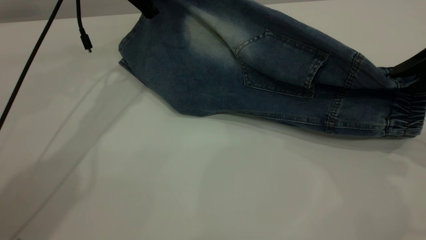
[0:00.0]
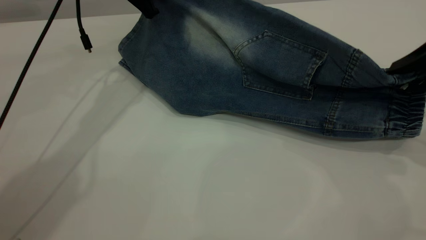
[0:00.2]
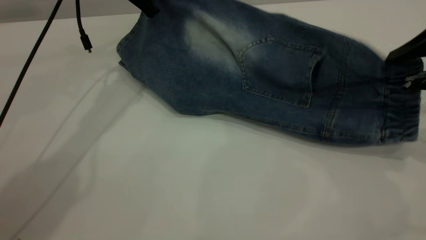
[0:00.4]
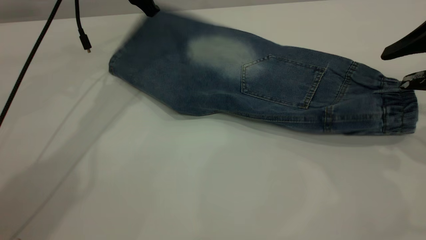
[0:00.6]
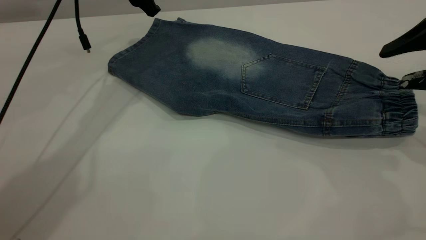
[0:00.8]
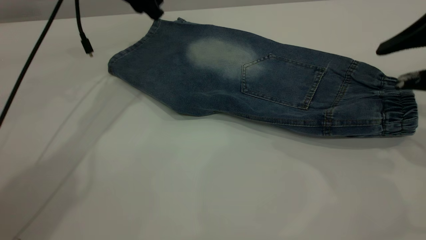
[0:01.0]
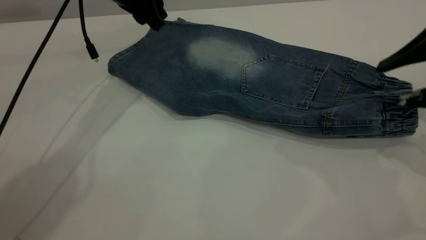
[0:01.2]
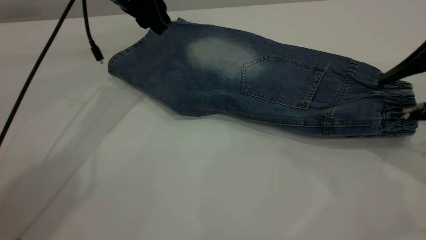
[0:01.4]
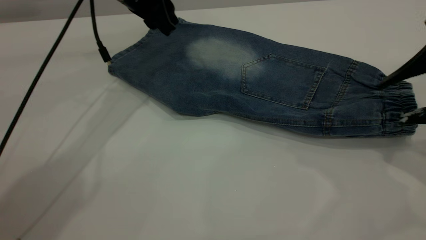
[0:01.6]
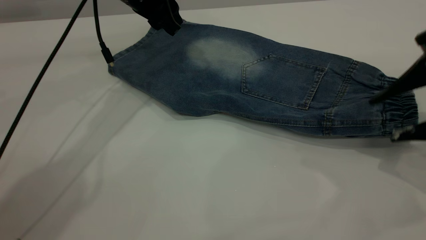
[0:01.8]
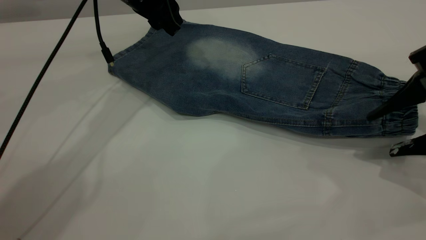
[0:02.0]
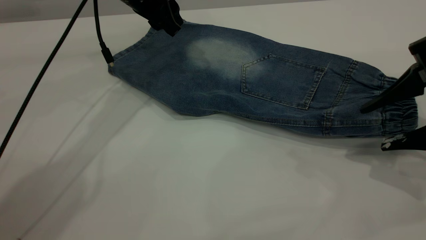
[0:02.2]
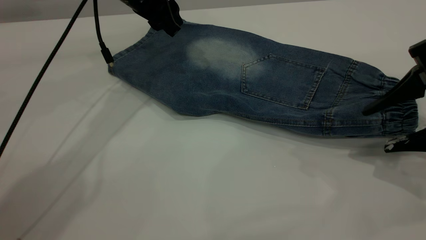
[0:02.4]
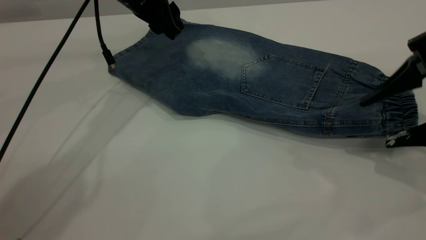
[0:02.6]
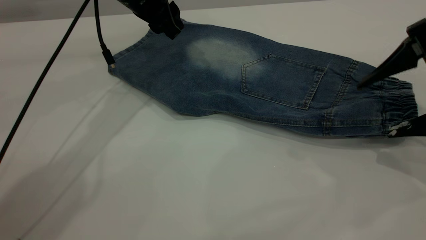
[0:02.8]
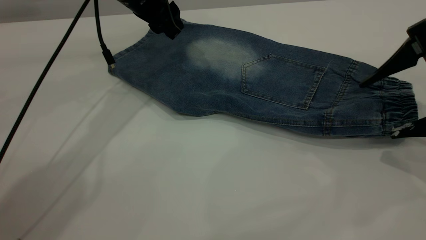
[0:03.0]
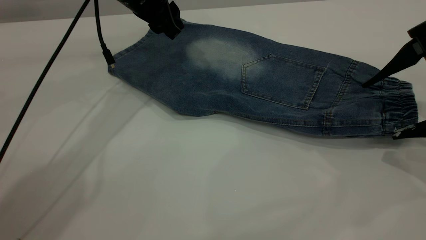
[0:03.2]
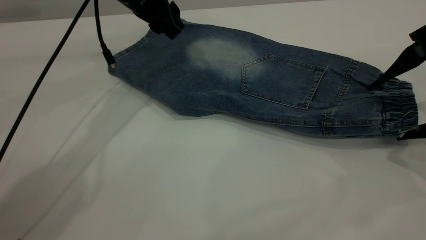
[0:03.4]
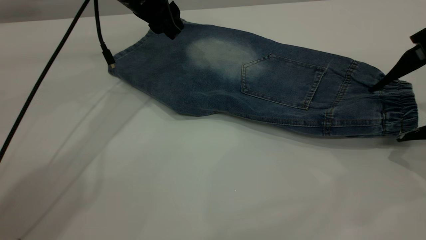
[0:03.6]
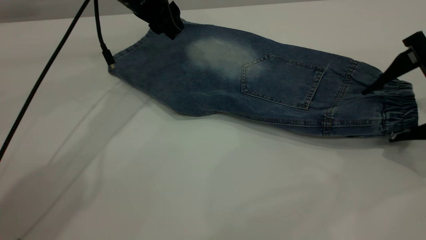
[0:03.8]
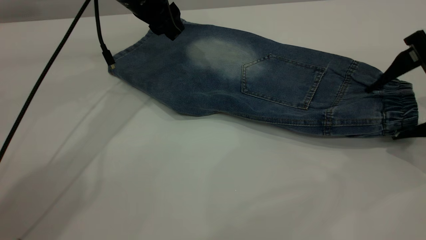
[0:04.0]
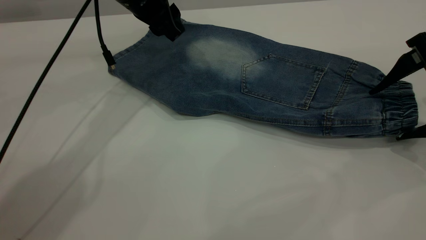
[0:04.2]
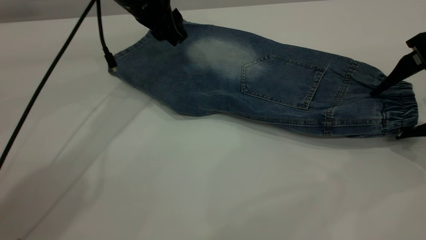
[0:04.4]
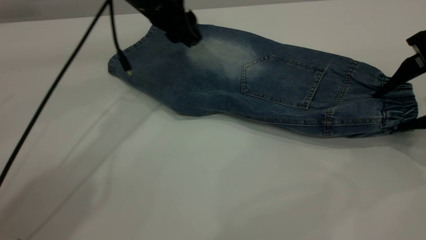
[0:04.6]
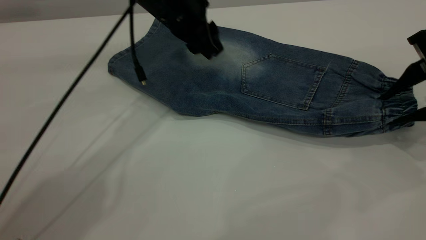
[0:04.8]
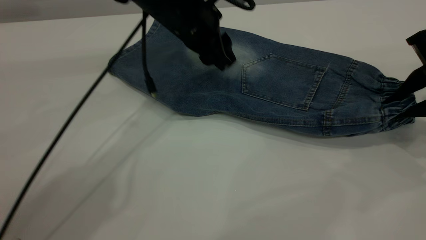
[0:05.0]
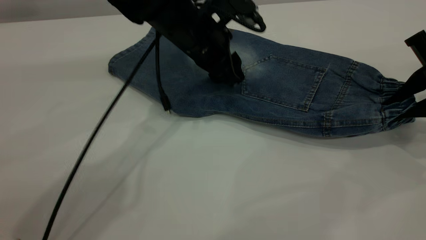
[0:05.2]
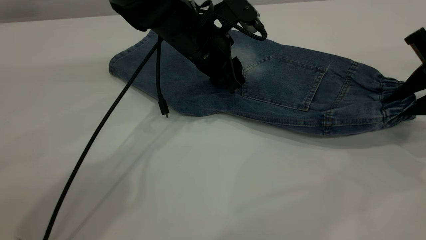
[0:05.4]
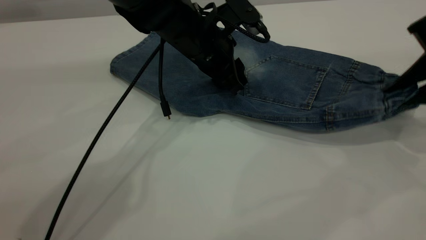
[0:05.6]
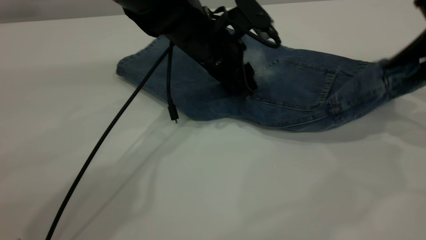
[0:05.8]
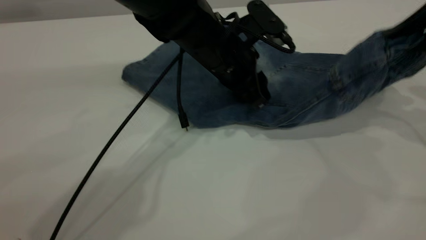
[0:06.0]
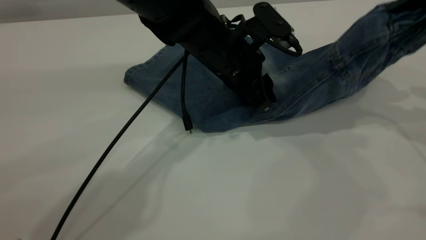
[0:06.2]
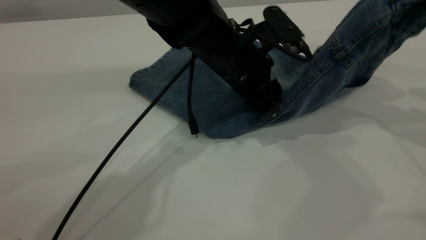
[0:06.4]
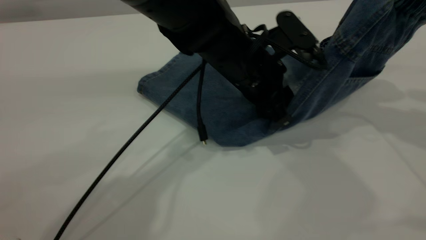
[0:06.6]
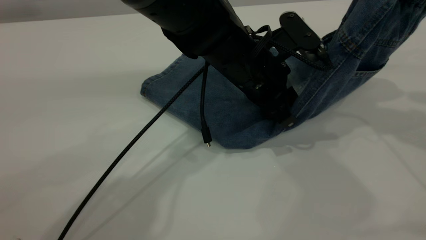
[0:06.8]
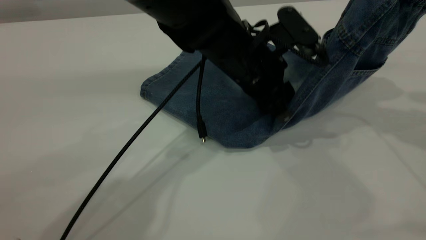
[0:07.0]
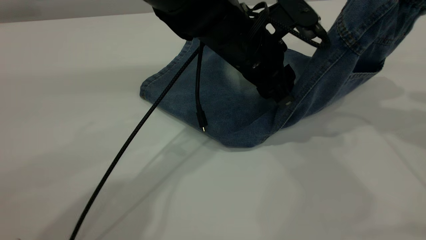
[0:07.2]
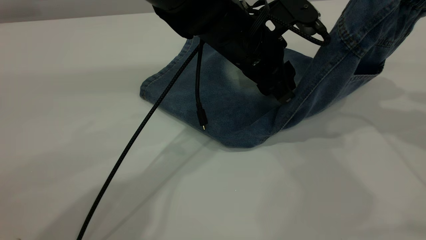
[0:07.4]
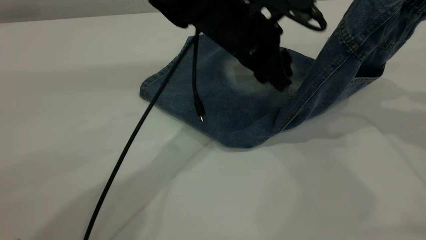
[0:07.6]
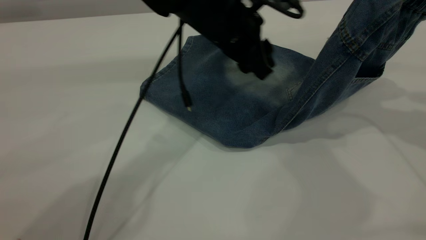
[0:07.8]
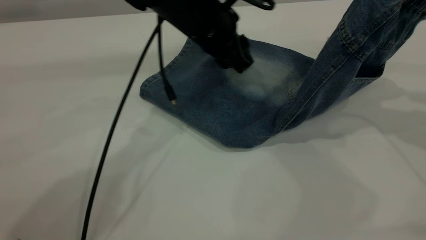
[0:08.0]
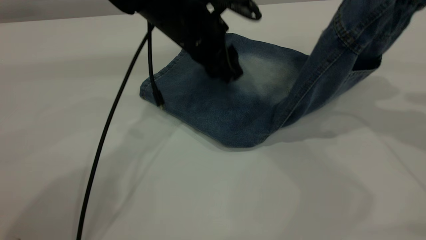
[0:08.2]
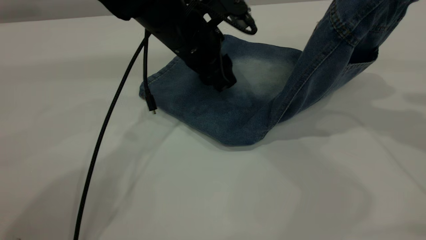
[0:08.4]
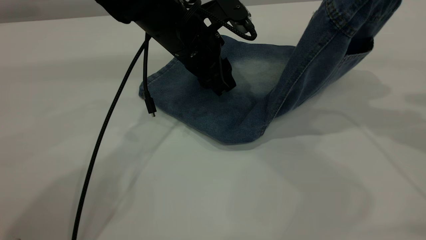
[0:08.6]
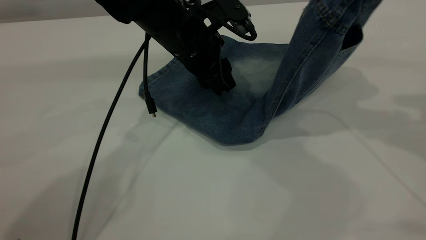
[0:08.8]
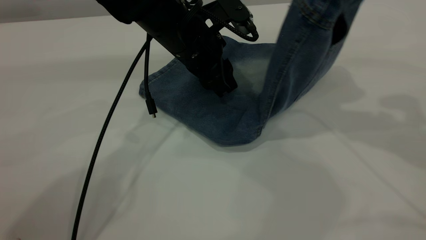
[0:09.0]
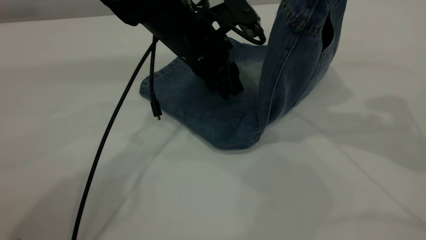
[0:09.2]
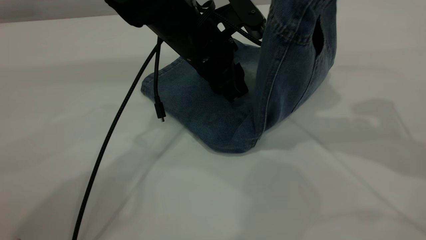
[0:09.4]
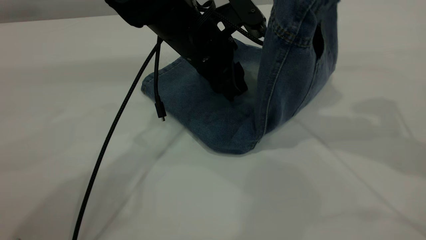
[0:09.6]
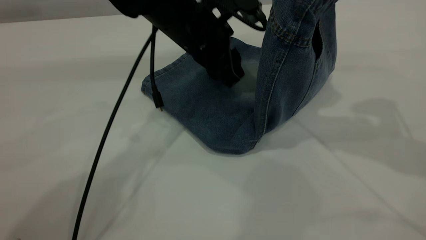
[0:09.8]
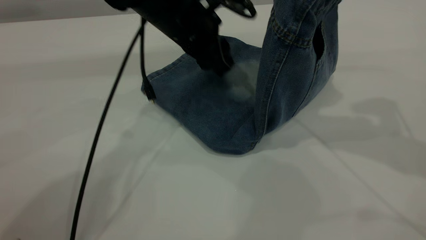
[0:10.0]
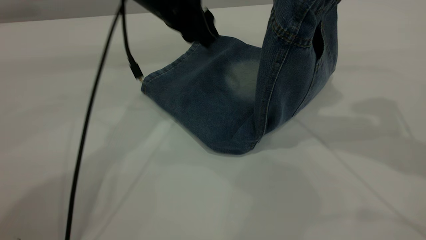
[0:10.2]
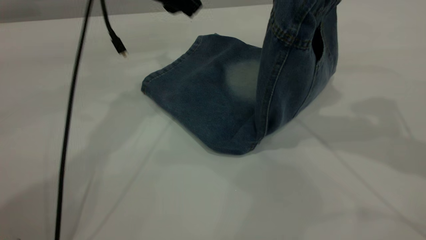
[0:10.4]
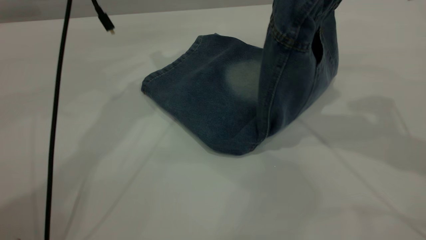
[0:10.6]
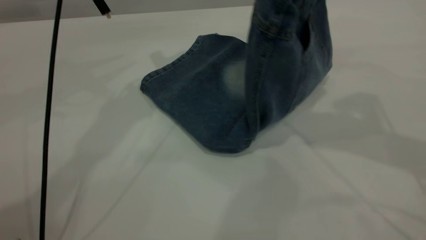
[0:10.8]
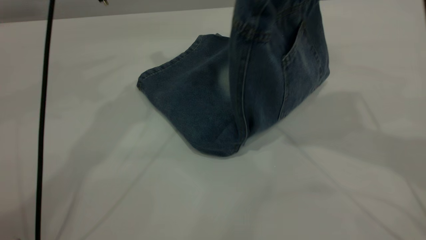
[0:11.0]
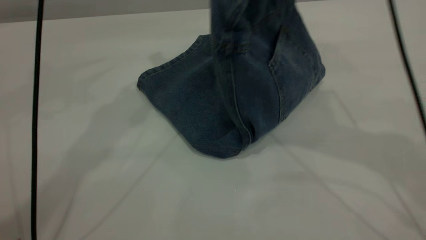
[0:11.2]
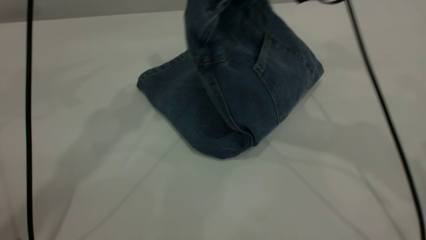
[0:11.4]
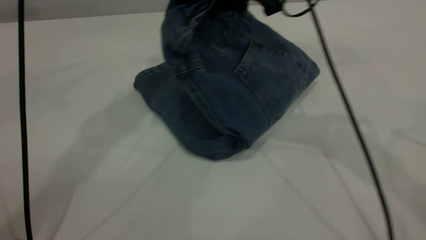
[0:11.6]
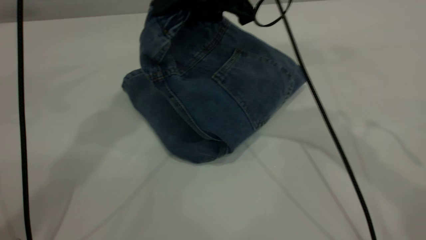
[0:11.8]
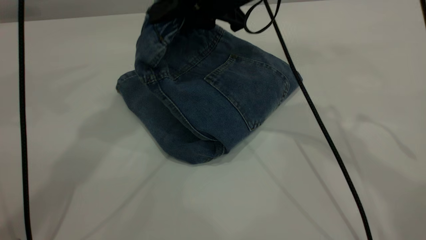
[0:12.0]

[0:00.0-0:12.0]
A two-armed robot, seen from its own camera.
0:00.0 to 0:01.6: The right gripper opens its fingers. The left gripper opens its fingers.
0:01.6 to 0:04.4: There are only small adjustments of the grippers.
0:04.4 to 0:06.0: The left gripper shifts roughly 15 cm to the right, downward and backward. Meanwhile the right gripper travels upward by some 10 cm, and closes.
0:06.0 to 0:07.6: Both grippers travel together upward, roughly 5 cm.
0:07.6 to 0:09.0: The left gripper moves to the left, some 5 cm, while the right gripper ends up about 5 cm from where it was.
0:09.0 to 0:10.4: The left gripper is displaced upward and to the left by some 10 cm.
0:10.4 to 0:12.0: The right gripper goes approximately 20 cm to the left, forward and downward. Meanwhile the left gripper shifts some 15 cm upward.

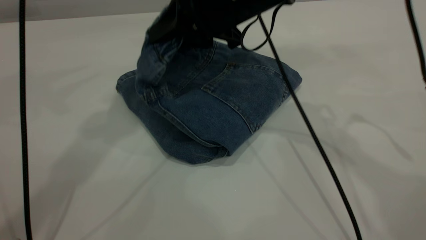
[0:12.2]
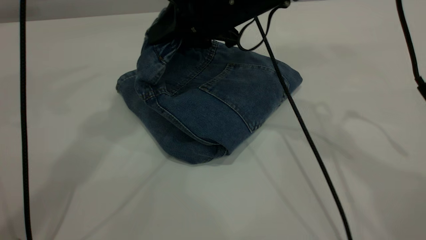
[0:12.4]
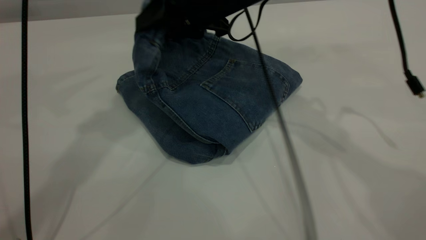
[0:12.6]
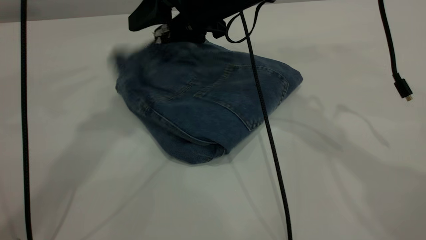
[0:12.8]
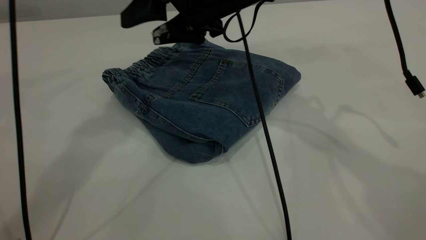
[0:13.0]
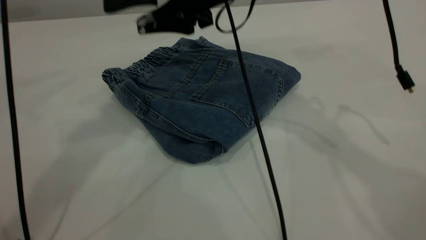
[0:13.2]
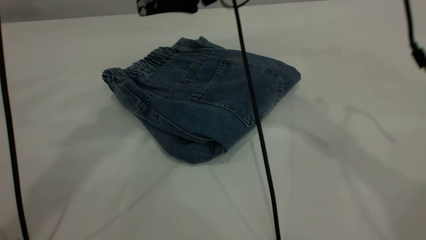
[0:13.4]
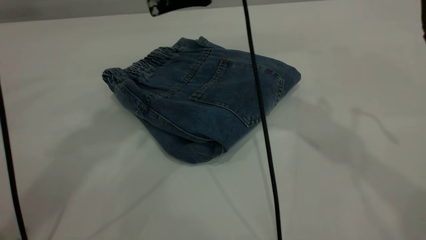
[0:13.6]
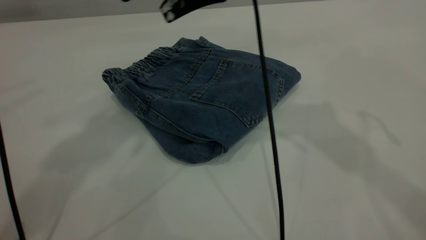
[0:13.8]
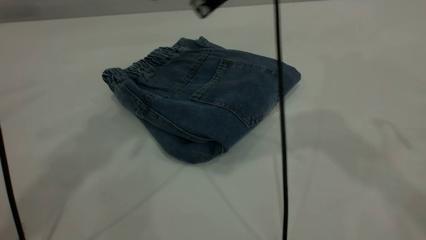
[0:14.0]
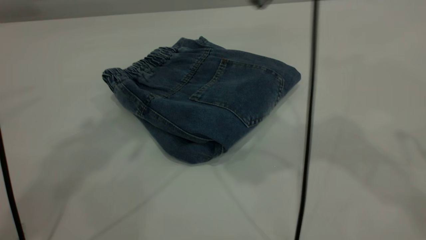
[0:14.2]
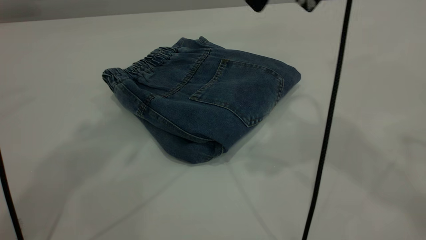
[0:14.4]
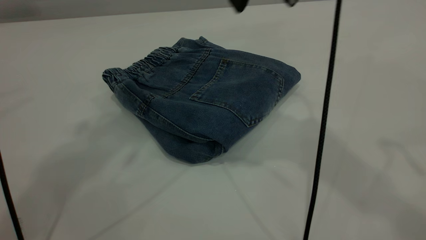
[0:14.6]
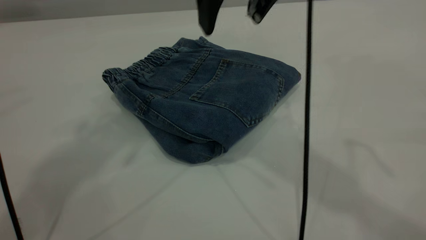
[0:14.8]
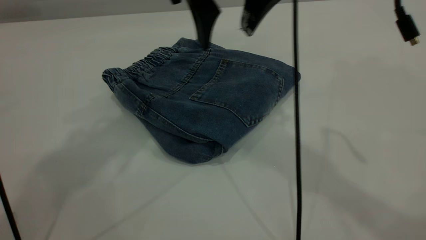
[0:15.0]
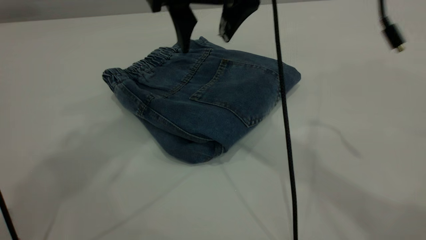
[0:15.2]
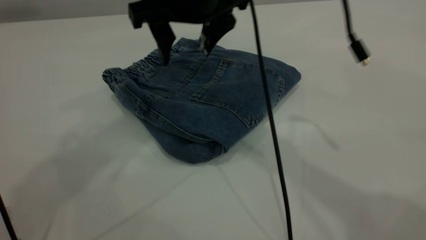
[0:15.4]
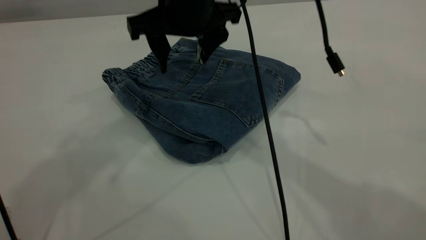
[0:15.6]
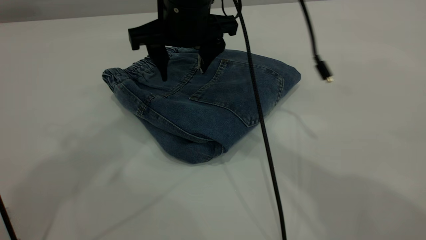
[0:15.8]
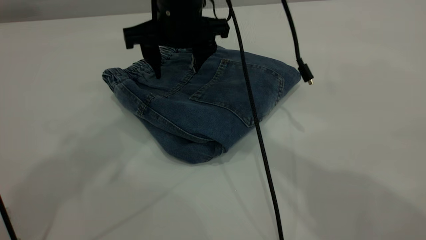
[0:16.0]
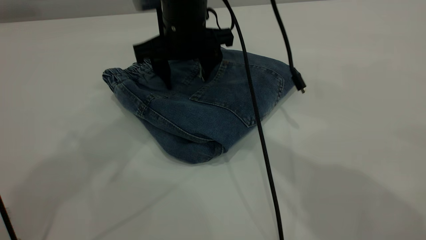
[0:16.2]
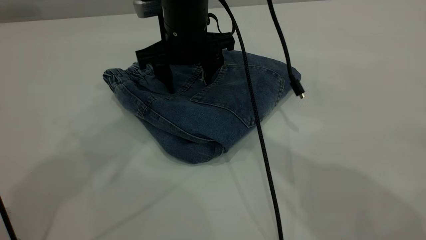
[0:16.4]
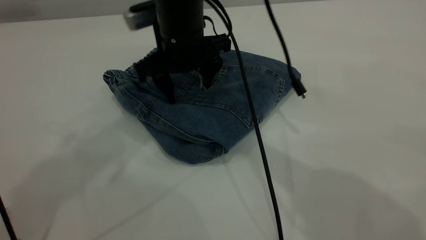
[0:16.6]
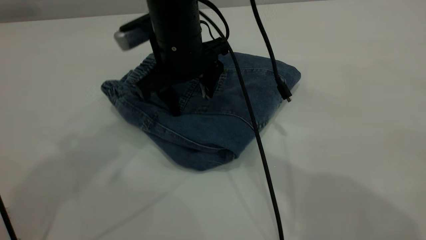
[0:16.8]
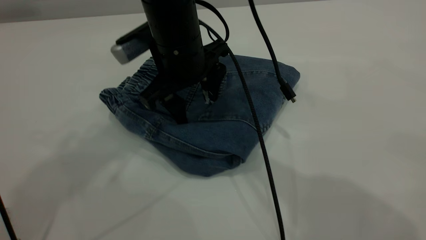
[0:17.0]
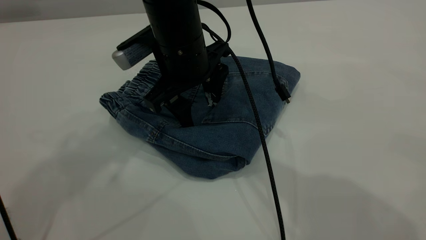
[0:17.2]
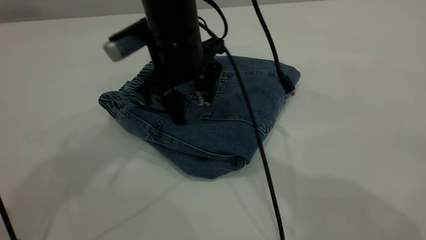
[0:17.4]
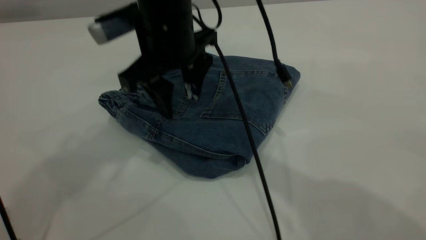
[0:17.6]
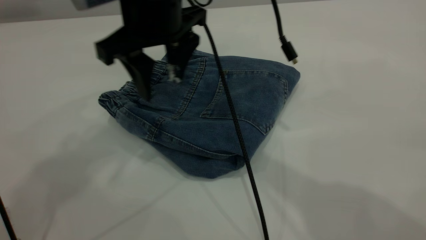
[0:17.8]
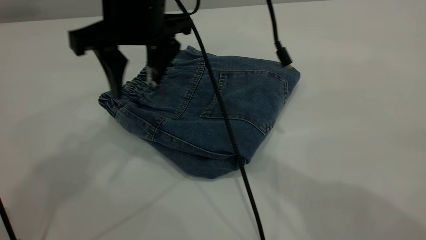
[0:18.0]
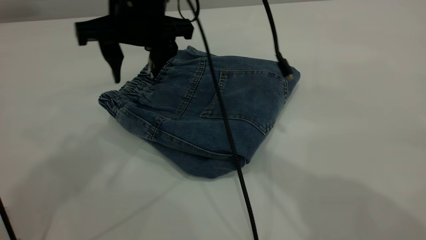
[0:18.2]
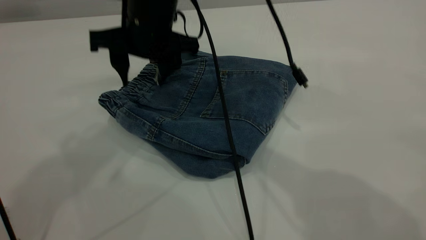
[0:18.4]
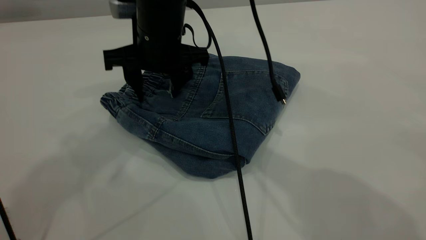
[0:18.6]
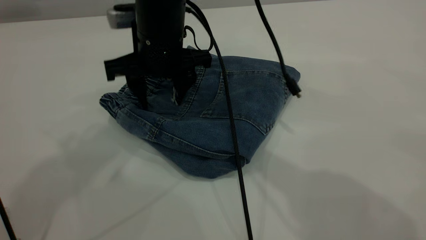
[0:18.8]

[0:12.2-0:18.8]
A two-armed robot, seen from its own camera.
0:12.2 to 0:13.8: Both grippers move upward, about 10 cm. The right gripper opens.
0:13.8 to 0:15.4: The left gripper ends up roughly 5 cm from where it was, while the right gripper is displaced downward and to the left by approximately 10 cm.
0:15.4 to 0:17.2: The right gripper moves downward, about 5 cm.
